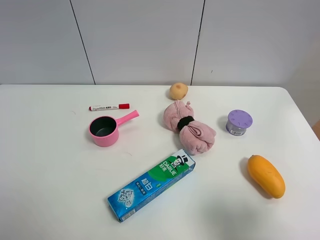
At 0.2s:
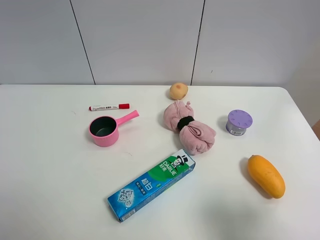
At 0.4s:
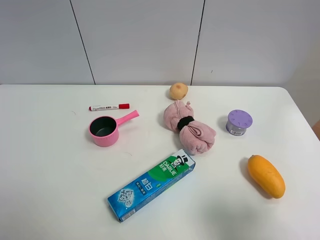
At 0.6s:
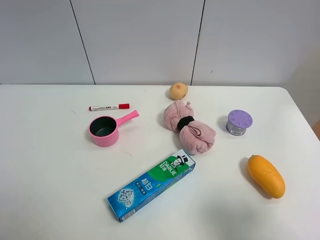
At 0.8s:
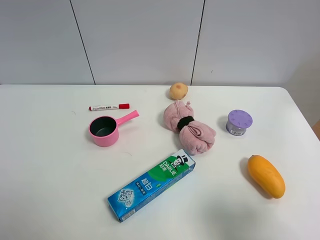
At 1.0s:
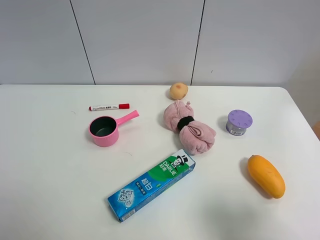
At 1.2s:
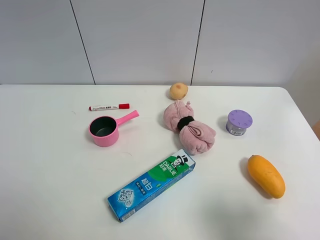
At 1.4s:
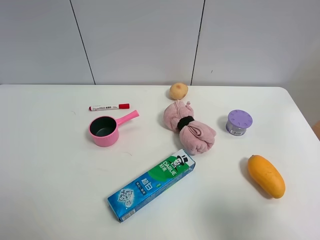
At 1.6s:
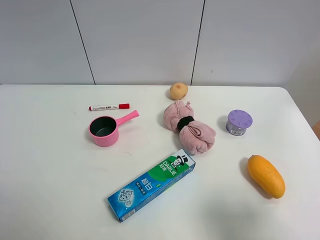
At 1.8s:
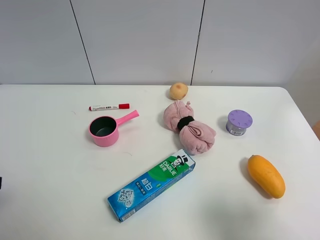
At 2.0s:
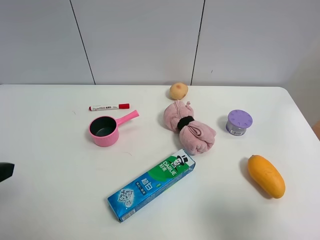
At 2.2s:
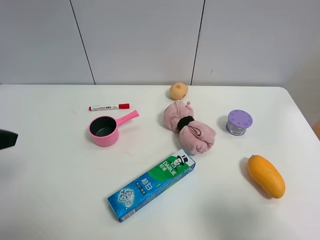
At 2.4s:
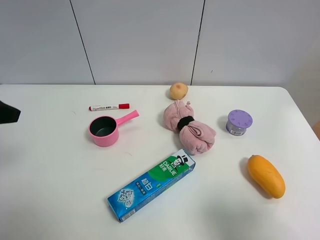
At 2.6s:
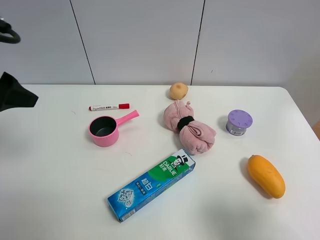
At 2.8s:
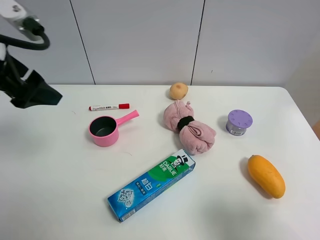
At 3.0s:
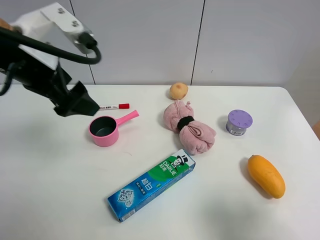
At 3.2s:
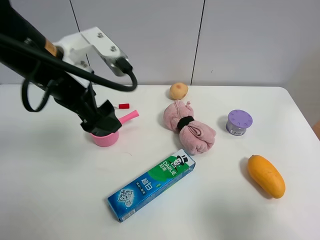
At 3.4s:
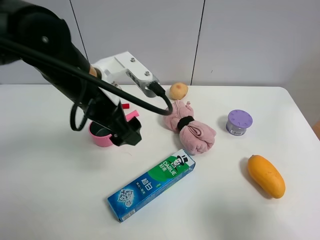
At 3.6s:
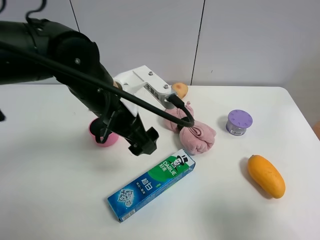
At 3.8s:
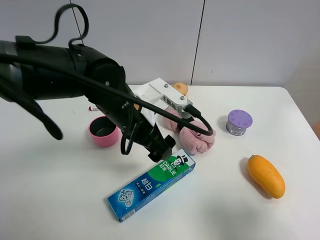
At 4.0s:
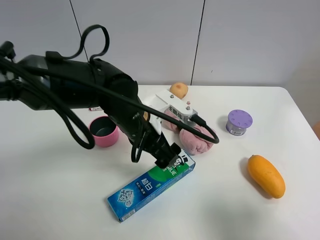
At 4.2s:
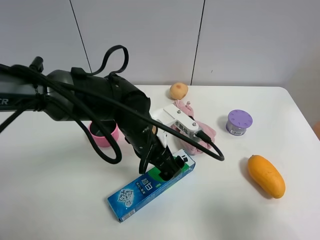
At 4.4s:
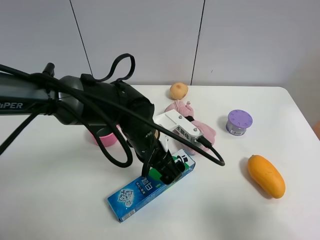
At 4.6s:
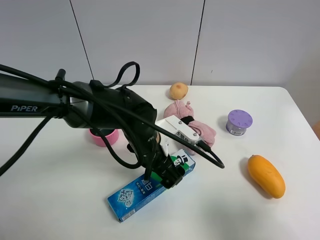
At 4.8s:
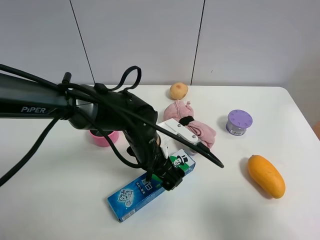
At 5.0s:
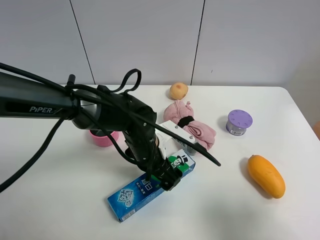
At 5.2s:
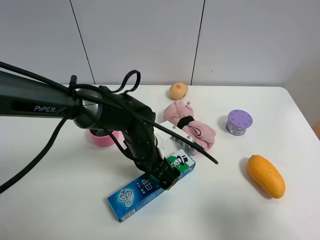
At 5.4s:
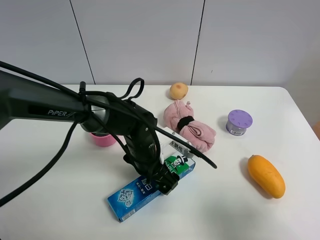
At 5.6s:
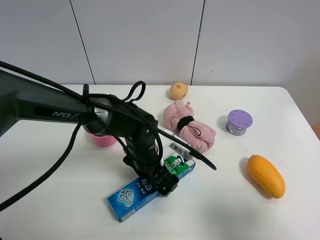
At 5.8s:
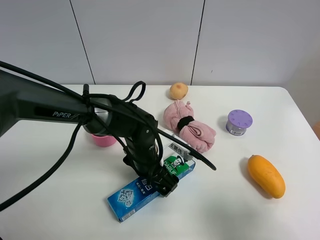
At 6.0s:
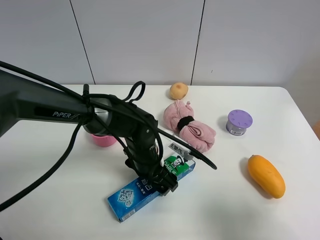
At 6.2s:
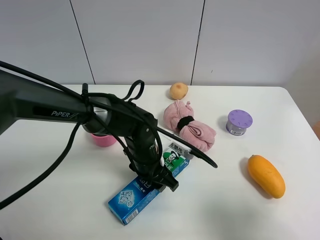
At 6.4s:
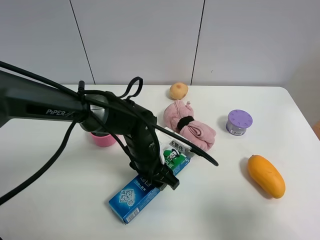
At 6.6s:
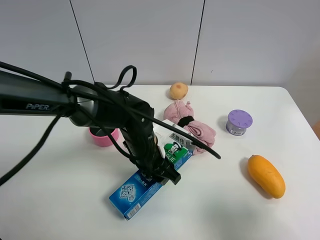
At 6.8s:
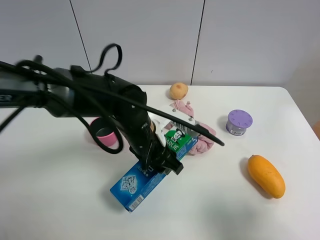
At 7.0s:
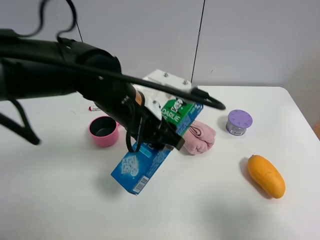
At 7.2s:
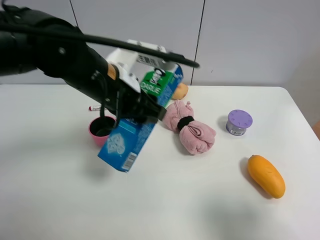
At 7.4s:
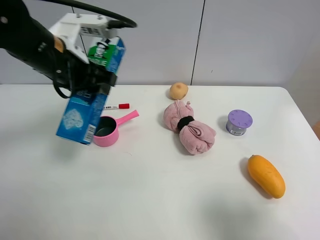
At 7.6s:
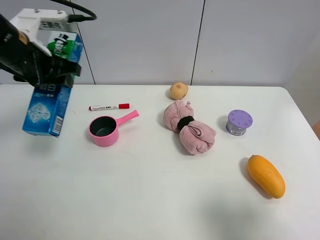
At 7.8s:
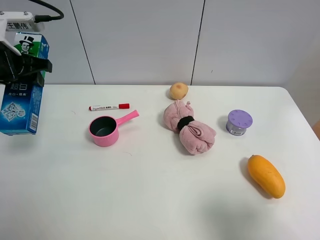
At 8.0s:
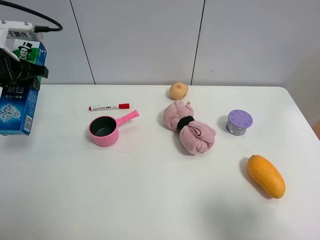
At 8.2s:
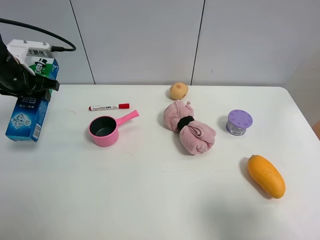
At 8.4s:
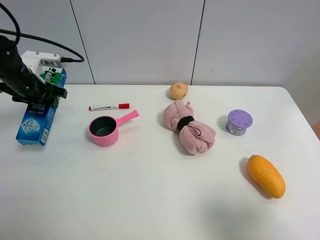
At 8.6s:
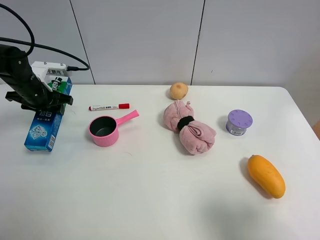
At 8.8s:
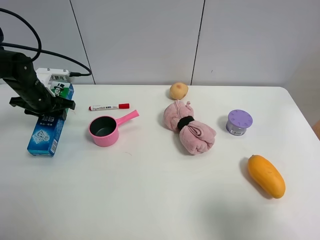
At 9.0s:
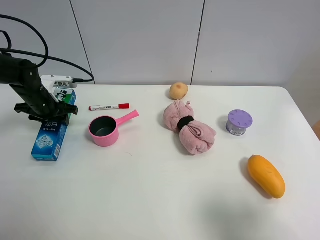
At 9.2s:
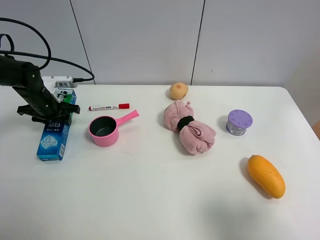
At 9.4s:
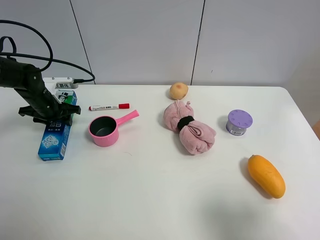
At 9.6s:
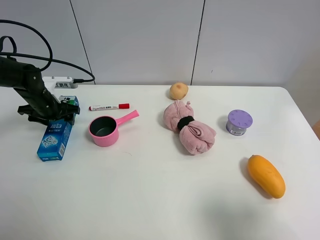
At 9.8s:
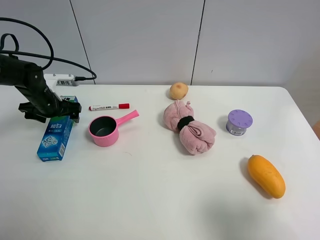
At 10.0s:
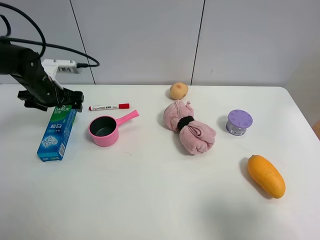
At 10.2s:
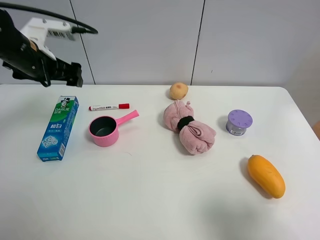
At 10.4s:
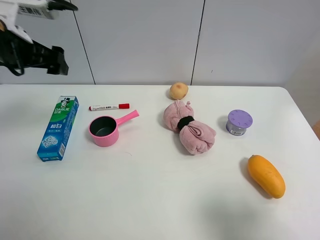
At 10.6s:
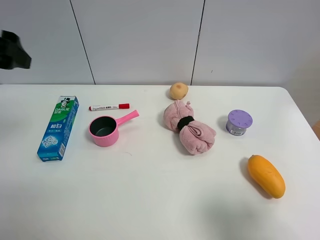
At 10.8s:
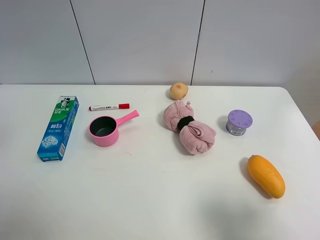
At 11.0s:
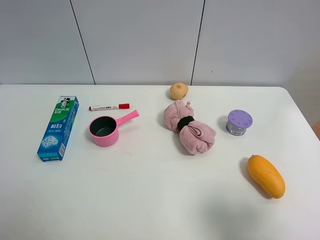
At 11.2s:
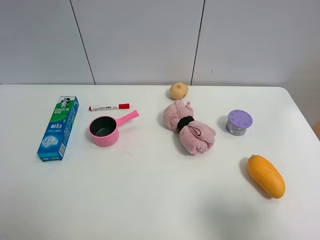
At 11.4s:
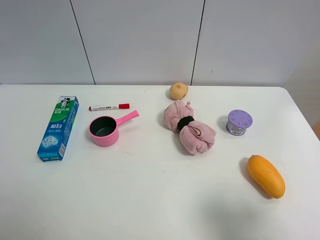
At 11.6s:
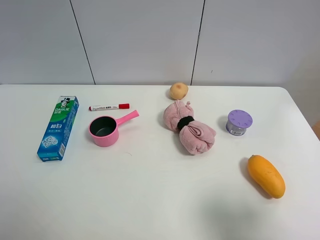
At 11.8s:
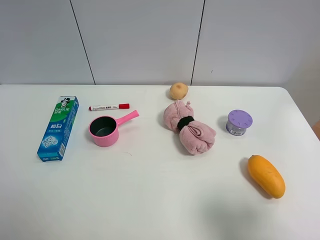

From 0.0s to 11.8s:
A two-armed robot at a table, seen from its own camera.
Task of the whole recording: the gripper move the object.
Step, from 0.0s to 6.2s: Grasp the toothpaste with the left gripper.
Step, from 6.4s to 9.8s: Place the toothpaste on the table with the left gripper.
From 0.0s to 1.4s: Both grippers stay about where they are.
From 1.4s to 3.0s: The left gripper goes approximately 25 cm forward and to the right.
From 3.0s to 4.4s: The left gripper moves downward and to the right, roughly 25 cm.
From 4.4s to 6.0s: The left gripper is displaced downward by about 5 cm, and closes.
From 6.0s to 7.4s: The left gripper heads upward and to the left, covering roughly 25 cm, and closes.
From 7.4s to 8.8s: The left gripper is displaced downward, to the left and forward by some 25 cm.
From 8.8s to 10.4s: The left gripper moves upward and backward, approximately 20 cm, and opens its fingers.
From 10.4s to 11.8s: The left gripper is displaced backward by approximately 25 cm.

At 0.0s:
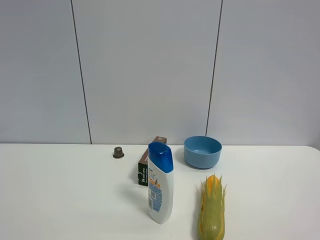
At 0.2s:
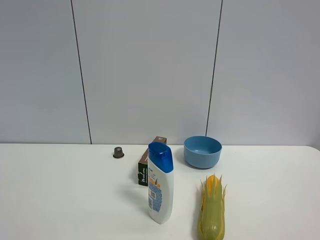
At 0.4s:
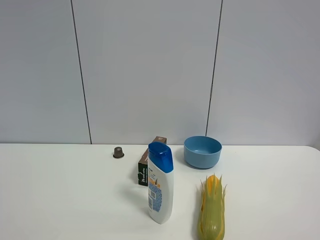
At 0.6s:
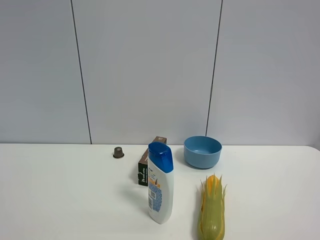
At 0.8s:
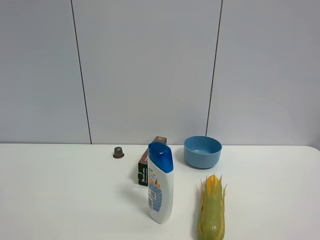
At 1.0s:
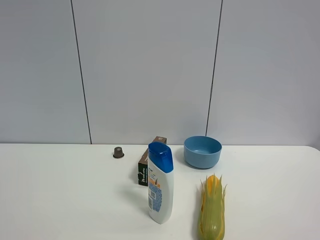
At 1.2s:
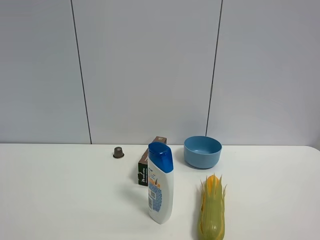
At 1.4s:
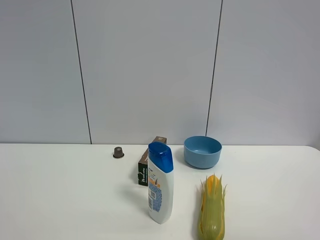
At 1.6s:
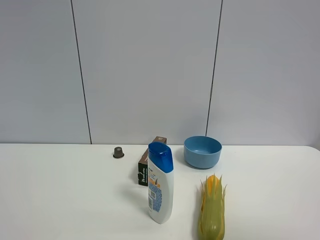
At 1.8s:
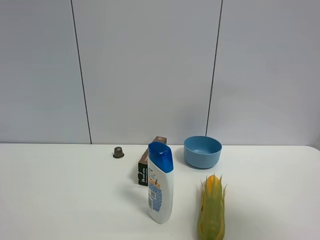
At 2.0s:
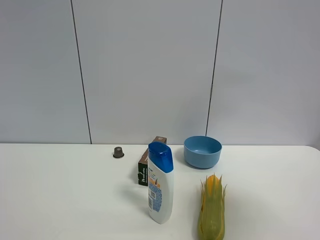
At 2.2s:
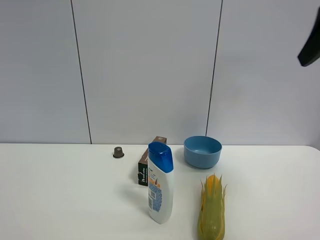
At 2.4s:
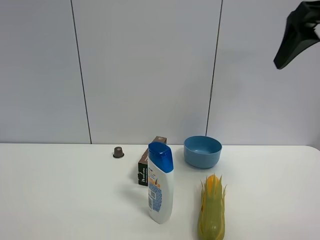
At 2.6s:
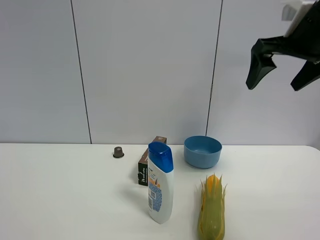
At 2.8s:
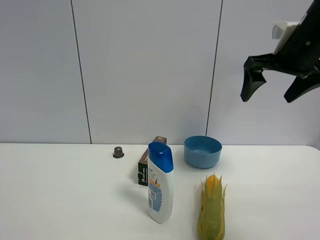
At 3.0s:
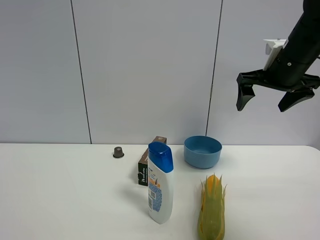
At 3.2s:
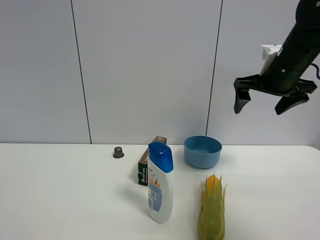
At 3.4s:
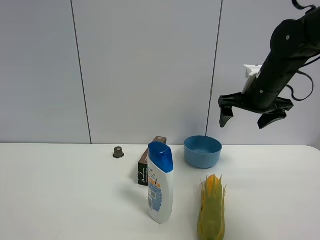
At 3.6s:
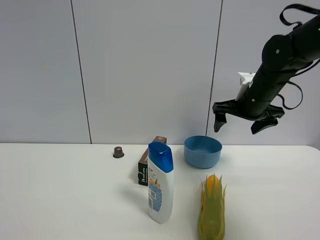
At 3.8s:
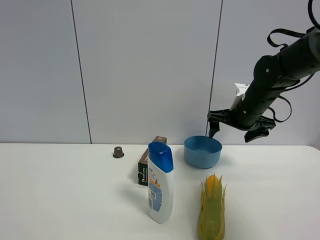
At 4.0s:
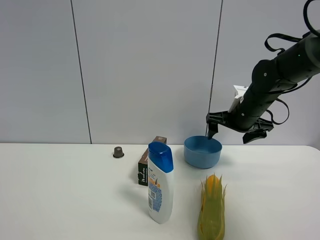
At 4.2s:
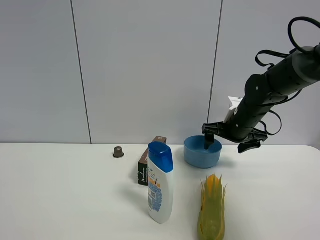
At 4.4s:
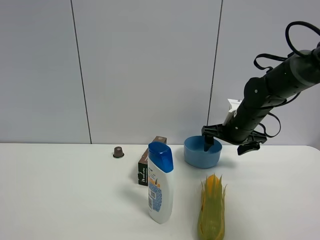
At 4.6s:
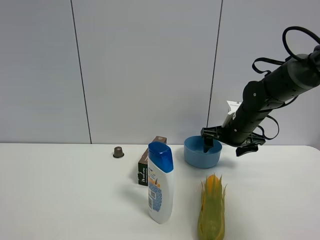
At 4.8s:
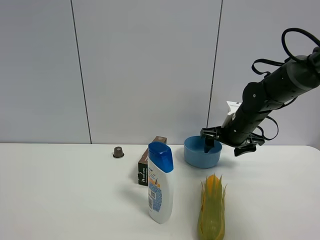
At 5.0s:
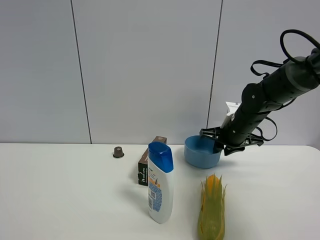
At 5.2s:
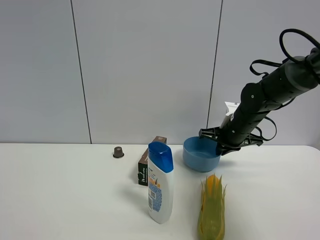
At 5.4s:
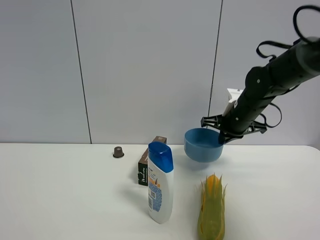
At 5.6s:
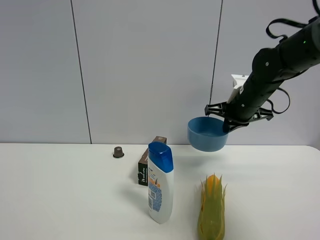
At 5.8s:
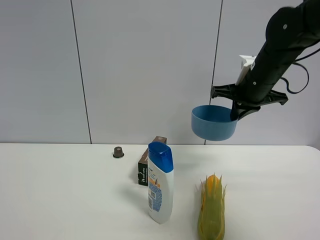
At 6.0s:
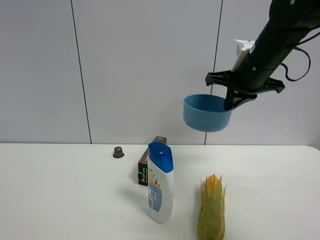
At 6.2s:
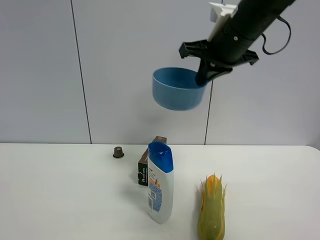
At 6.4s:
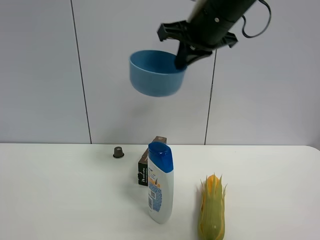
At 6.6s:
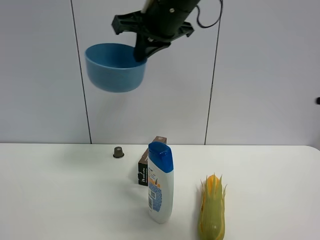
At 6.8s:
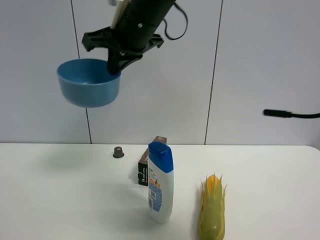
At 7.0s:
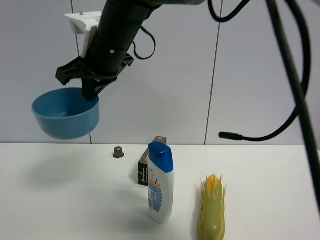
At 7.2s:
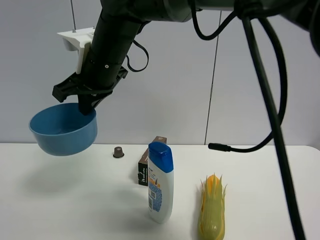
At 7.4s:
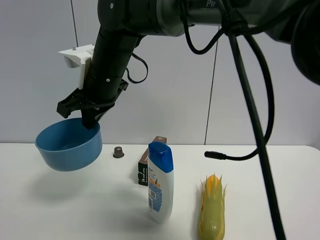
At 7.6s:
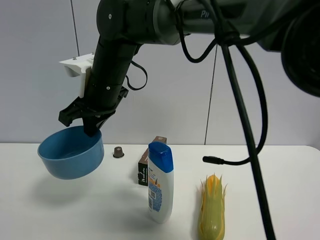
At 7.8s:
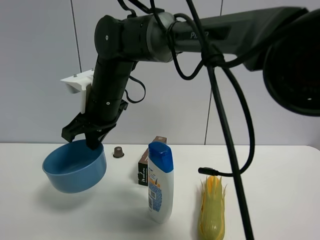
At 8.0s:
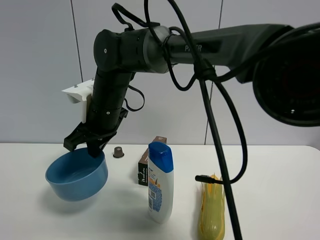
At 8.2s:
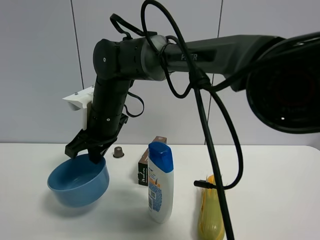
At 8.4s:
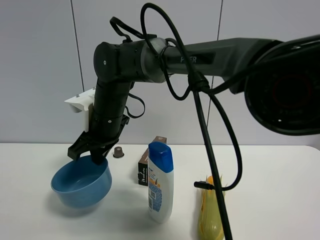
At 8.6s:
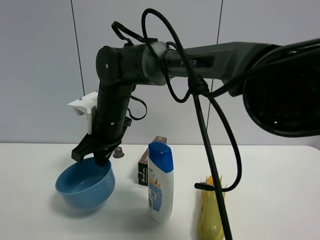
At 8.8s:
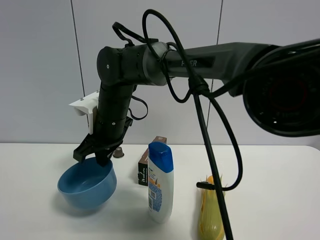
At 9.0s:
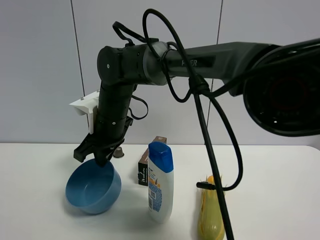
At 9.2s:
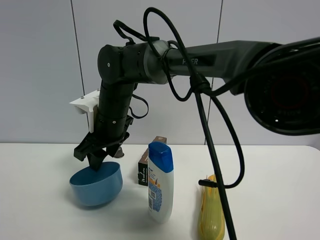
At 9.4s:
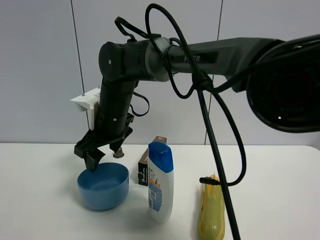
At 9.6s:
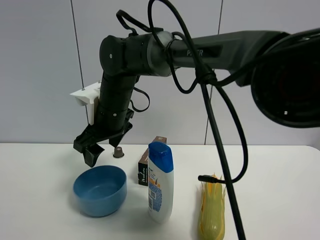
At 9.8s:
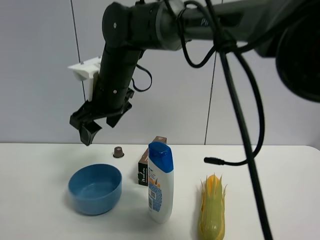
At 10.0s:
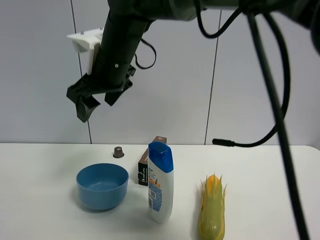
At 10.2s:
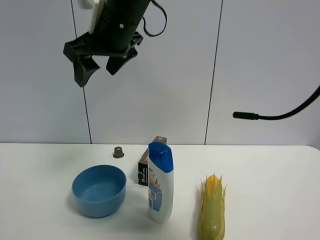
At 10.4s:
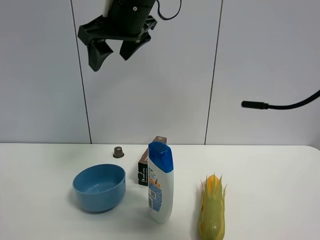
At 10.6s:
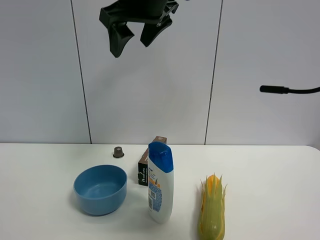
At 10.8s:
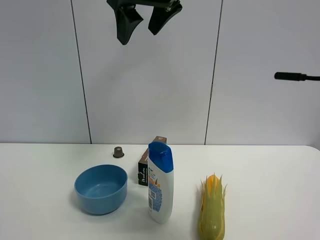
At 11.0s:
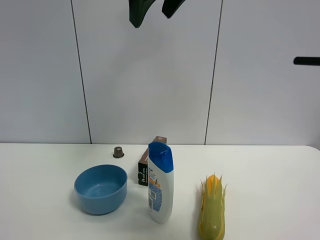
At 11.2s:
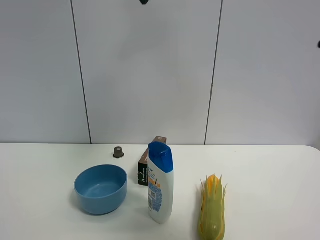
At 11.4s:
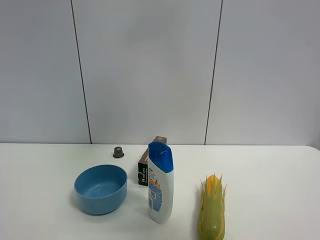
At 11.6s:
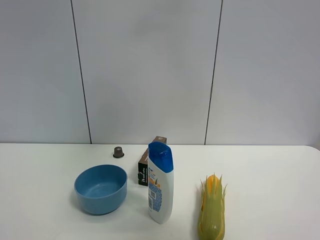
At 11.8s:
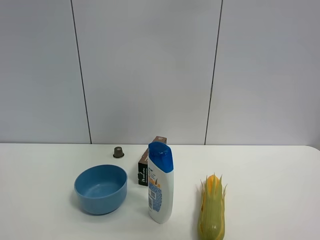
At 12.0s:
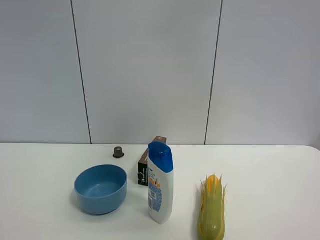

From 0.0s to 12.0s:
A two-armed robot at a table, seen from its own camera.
Task of the whole recording: the gripper move the object.
Step, from 0.0s to 5.2s: Grasp the blue bowl with the right gripper.
Step, from 5.4s to 9.0s: Place the blue bowl on the table with the right gripper.
From 1.6s to 3.0s: The right gripper heads forward, covering some 30 cm.
From 3.0s to 4.4s: The right gripper heads downward, covering some 15 cm.
From 4.4s to 6.0s: The right gripper shifts approximately 15 cm upward and backward, and closes its fingers.
From 6.0s to 7.6s: The right gripper shifts some 25 cm to the left.
From 7.6s to 9.0s: The right gripper heads downward, covering some 5 cm.
From 9.0s to 10.4s: The right gripper goes roughly 20 cm upward, and opens its fingers.
From 10.4s to 12.0s: The right gripper travels to the right, upward and backward by about 30 cm.
